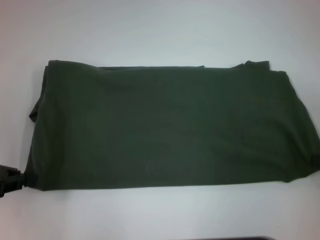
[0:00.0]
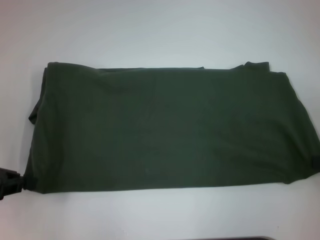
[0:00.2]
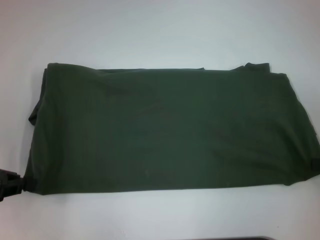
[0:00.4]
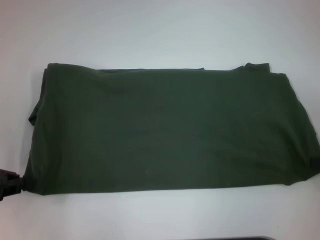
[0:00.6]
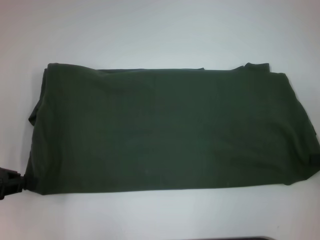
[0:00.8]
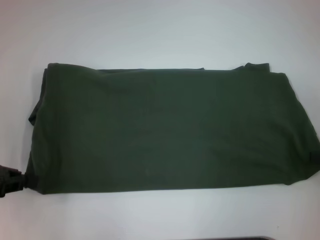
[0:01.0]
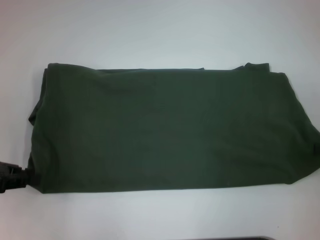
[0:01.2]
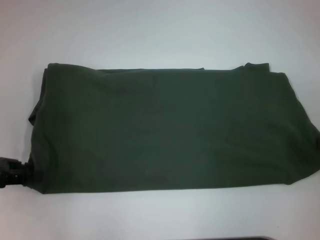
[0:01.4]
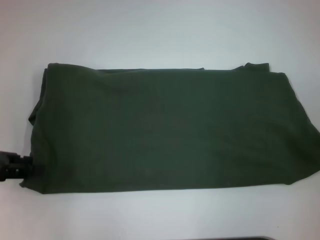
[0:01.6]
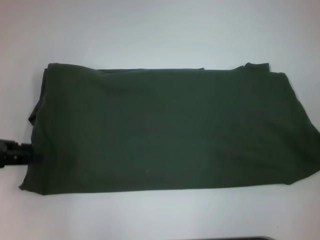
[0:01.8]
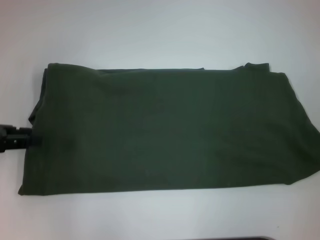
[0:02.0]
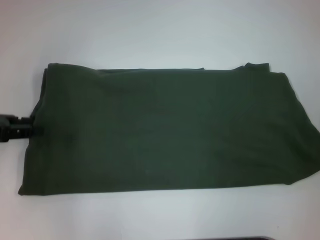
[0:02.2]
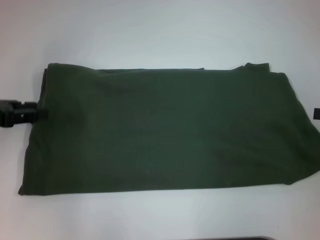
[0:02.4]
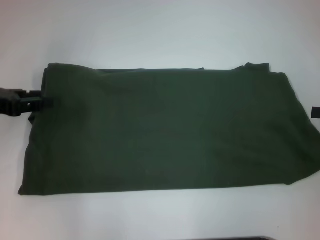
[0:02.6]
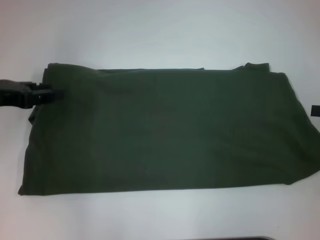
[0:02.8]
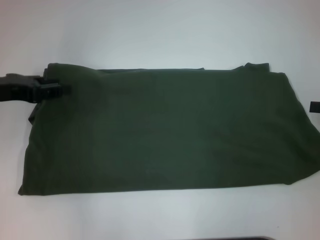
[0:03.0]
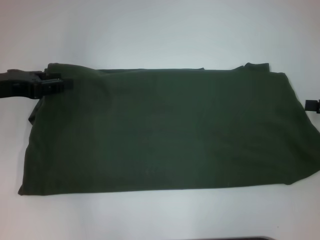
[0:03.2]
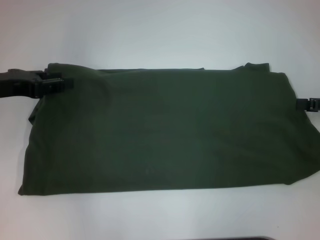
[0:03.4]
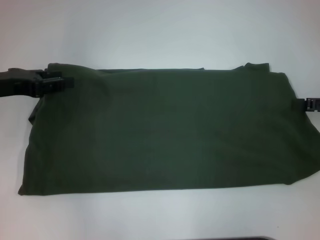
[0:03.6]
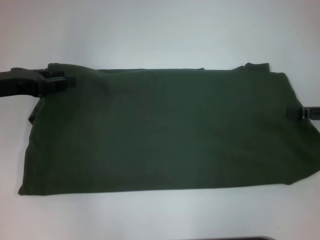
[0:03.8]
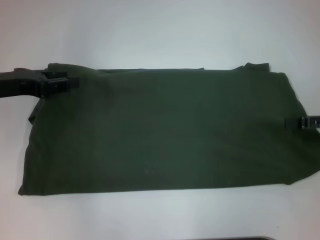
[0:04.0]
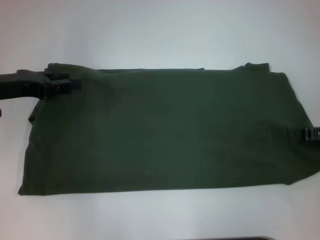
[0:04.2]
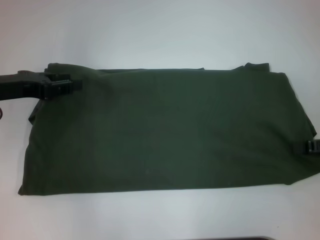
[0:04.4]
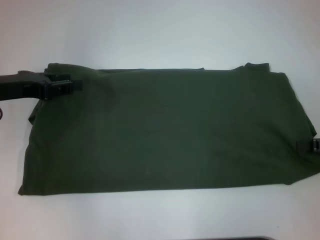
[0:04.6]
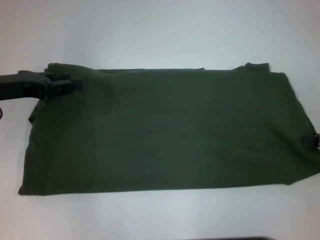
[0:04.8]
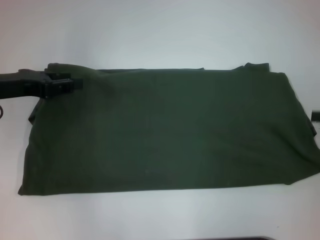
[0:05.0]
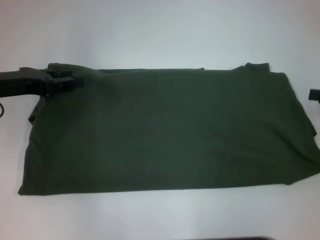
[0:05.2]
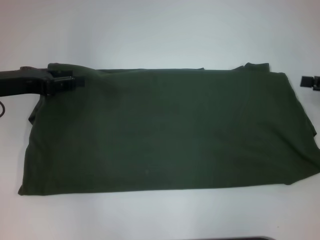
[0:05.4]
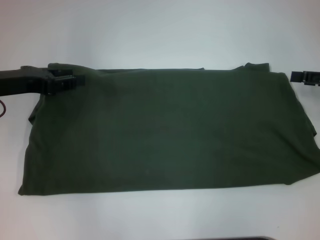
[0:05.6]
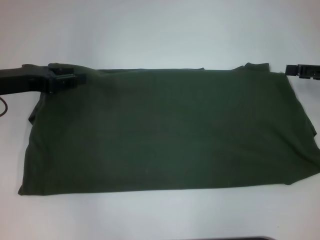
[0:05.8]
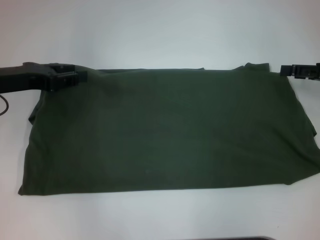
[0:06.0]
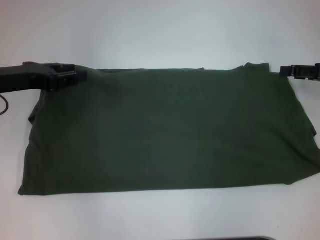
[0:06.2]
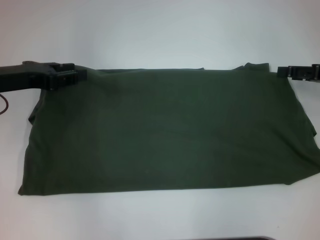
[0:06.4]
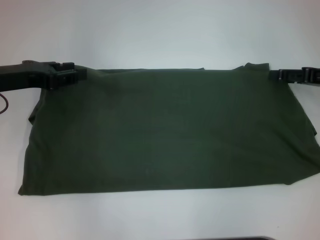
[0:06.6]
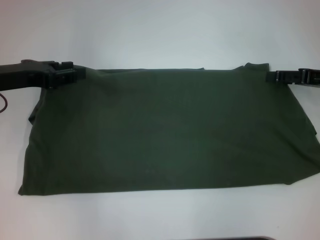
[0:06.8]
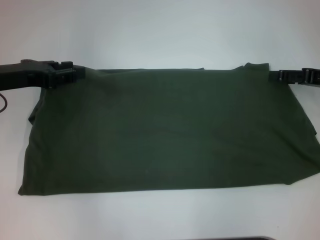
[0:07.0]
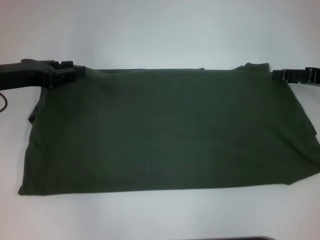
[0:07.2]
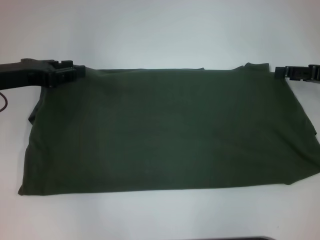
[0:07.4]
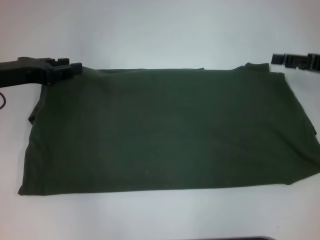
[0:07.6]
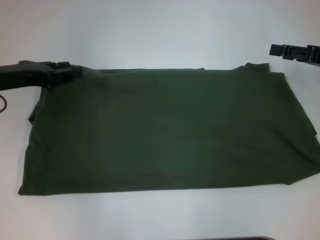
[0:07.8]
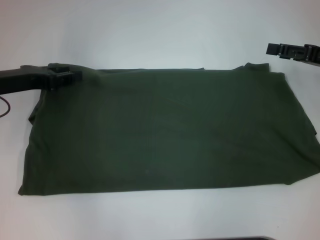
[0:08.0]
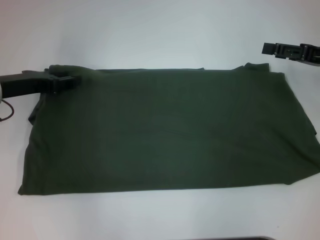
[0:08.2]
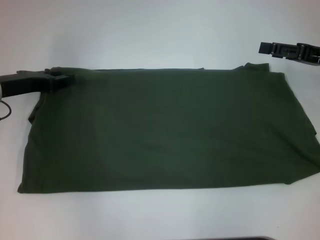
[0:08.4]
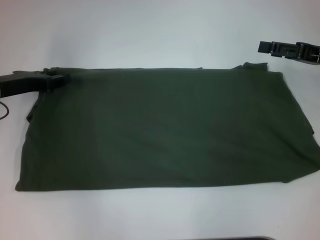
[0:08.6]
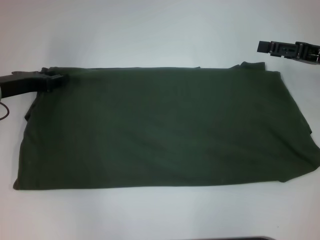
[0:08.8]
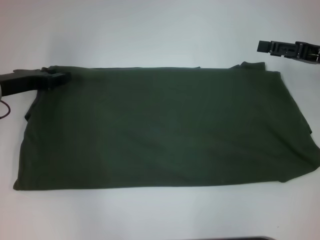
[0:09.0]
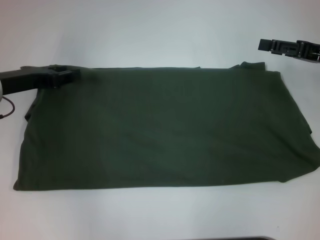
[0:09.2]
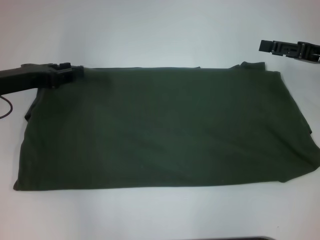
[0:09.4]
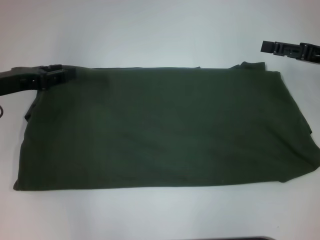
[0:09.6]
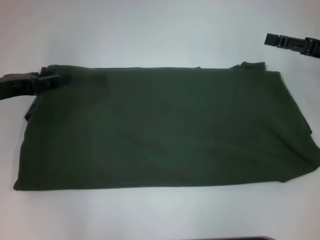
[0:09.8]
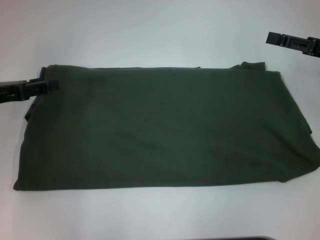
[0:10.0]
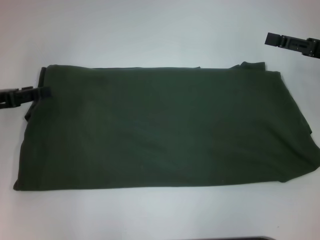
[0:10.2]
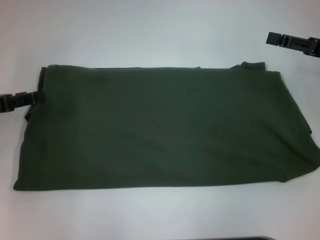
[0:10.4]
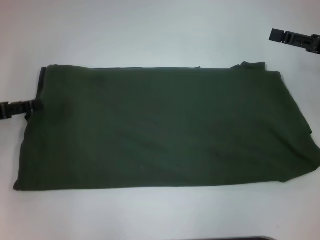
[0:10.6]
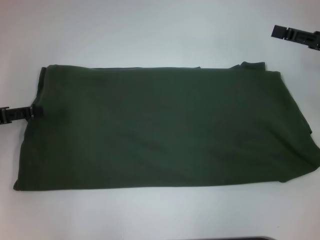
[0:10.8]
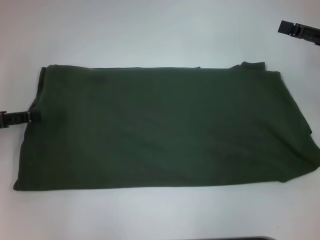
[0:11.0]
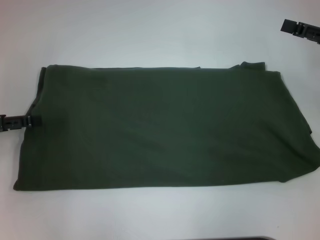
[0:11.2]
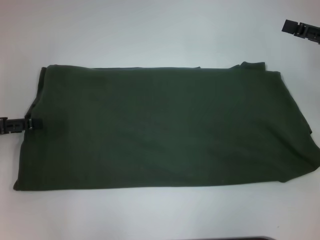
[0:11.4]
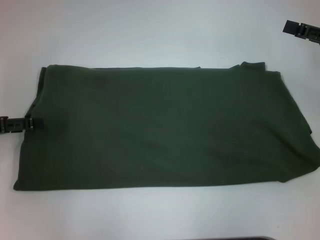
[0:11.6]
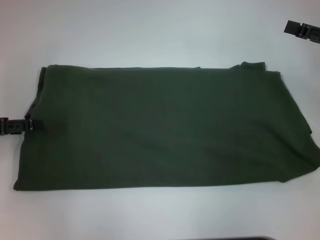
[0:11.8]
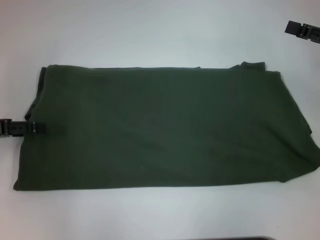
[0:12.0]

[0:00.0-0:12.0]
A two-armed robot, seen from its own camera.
0:00.0 to 0:01.6: The grippers move only a little.
0:01.6 to 0:03.0: The left gripper travels forward by about 5 cm.
0:03.0 to 0:04.4: The grippers stay close to where they were, moving slightly.
0:04.4 to 0:06.0: The right gripper is displaced forward by roughly 10 cm.
0:06.0 to 0:09.0: The grippers move only a little.
0:09.0 to 0:10.4: The left gripper shifts about 10 cm backward and to the left.
0:10.4 to 0:12.0: The grippers stay close to where they were, moving slightly.

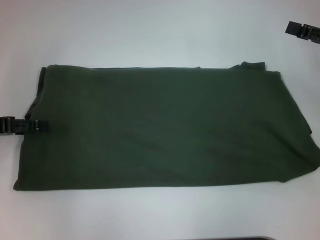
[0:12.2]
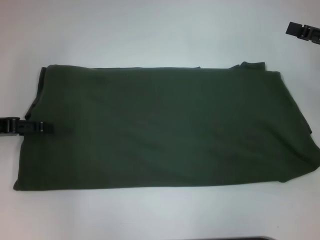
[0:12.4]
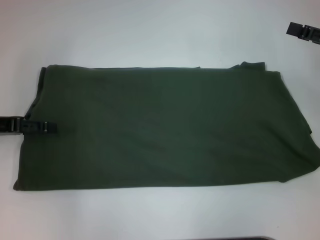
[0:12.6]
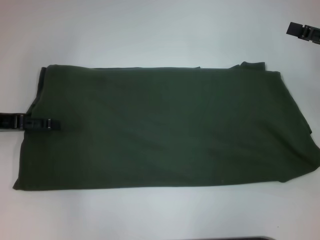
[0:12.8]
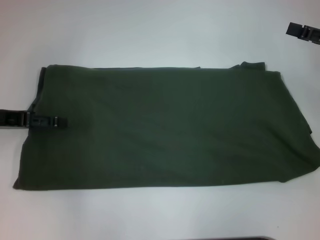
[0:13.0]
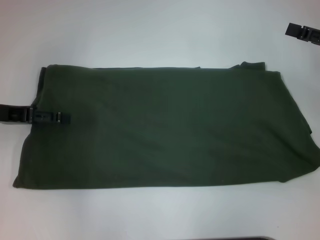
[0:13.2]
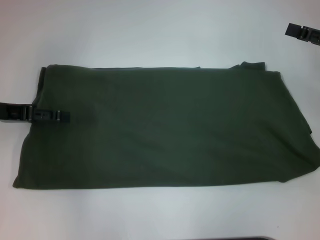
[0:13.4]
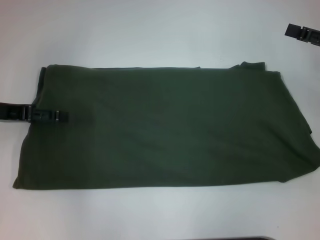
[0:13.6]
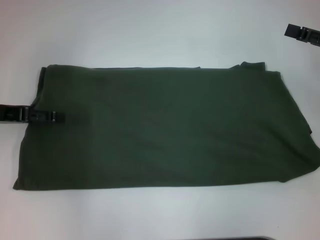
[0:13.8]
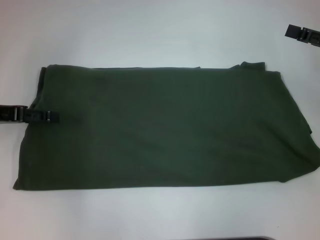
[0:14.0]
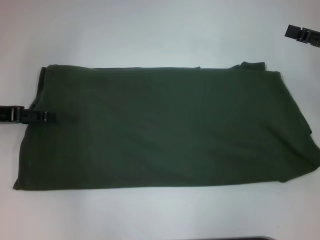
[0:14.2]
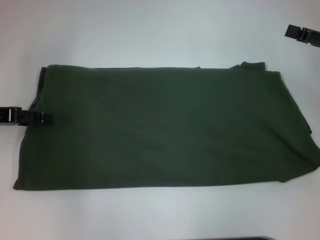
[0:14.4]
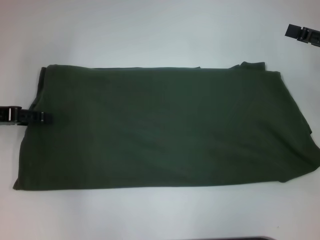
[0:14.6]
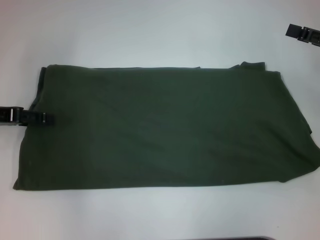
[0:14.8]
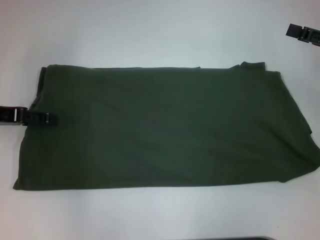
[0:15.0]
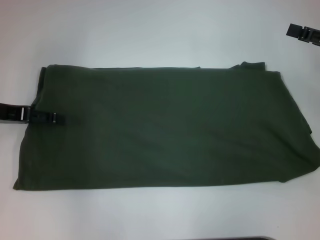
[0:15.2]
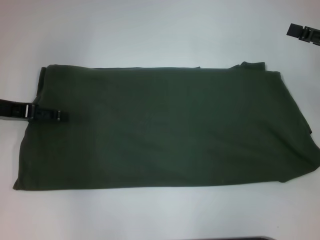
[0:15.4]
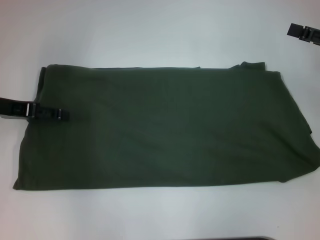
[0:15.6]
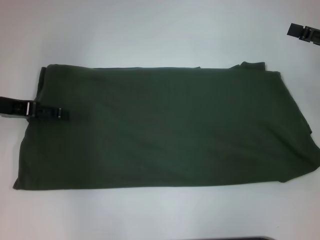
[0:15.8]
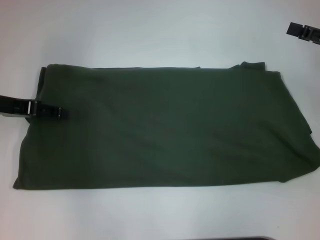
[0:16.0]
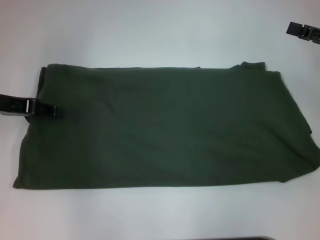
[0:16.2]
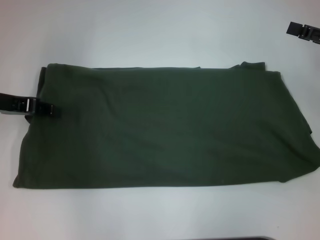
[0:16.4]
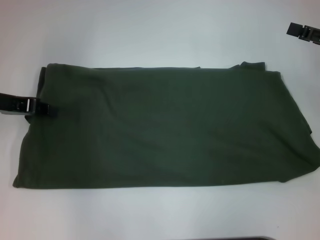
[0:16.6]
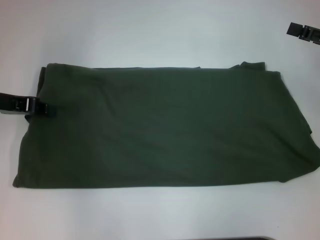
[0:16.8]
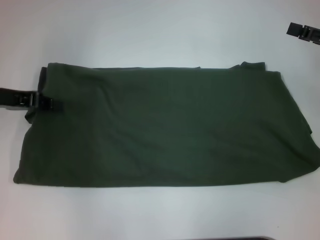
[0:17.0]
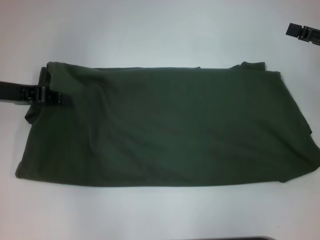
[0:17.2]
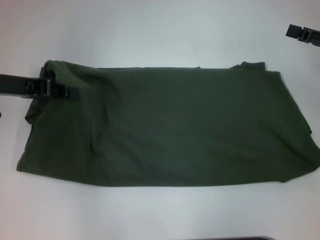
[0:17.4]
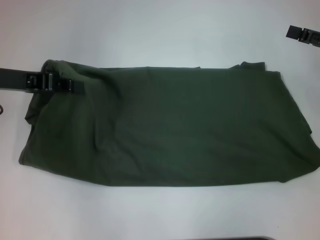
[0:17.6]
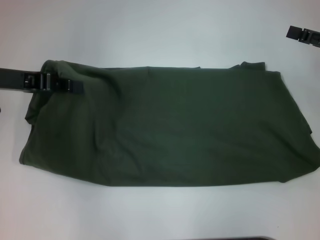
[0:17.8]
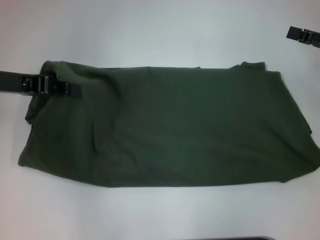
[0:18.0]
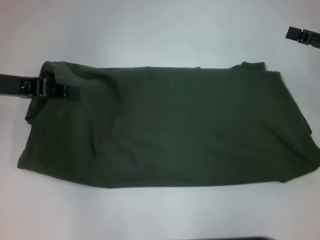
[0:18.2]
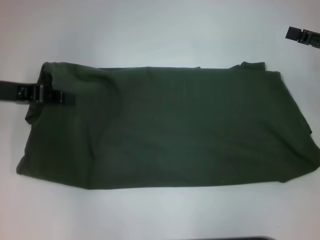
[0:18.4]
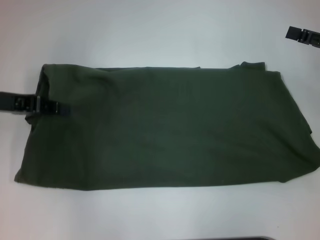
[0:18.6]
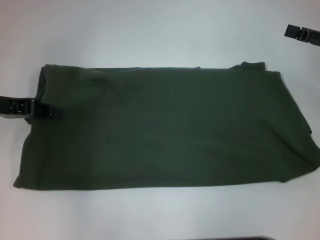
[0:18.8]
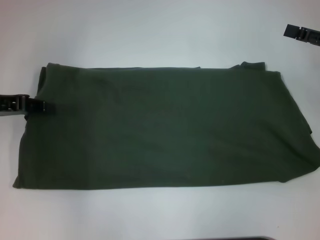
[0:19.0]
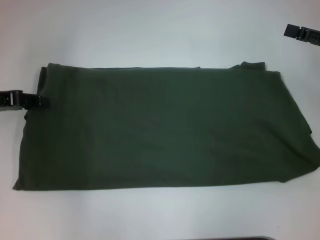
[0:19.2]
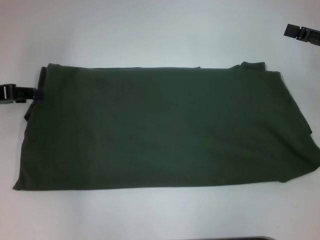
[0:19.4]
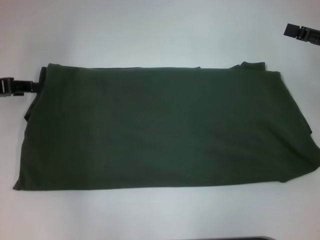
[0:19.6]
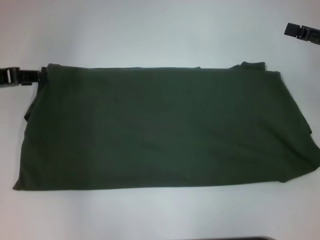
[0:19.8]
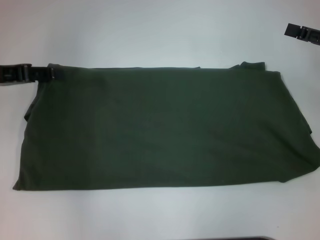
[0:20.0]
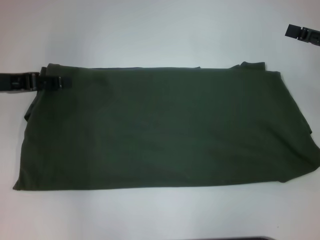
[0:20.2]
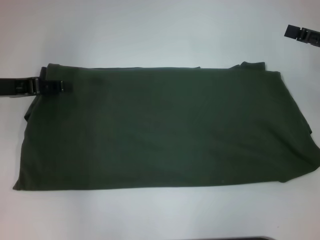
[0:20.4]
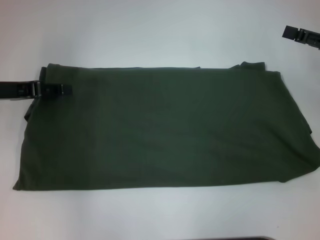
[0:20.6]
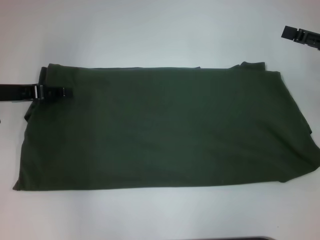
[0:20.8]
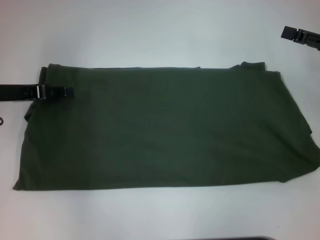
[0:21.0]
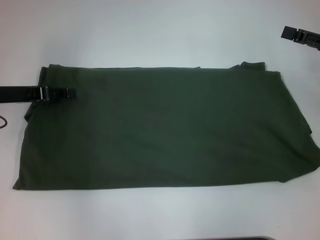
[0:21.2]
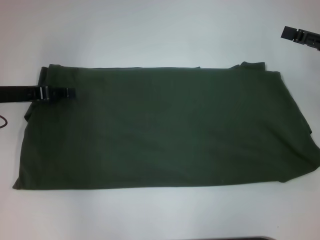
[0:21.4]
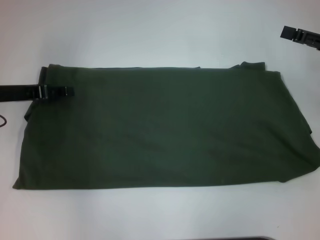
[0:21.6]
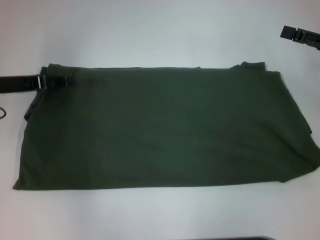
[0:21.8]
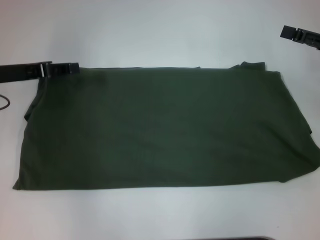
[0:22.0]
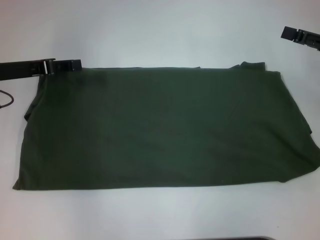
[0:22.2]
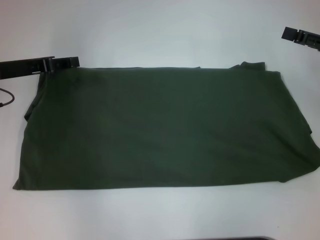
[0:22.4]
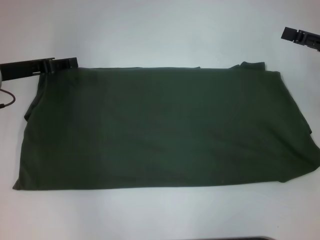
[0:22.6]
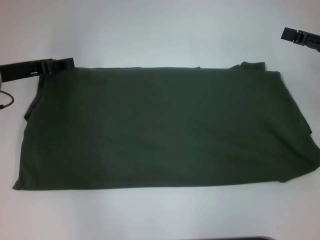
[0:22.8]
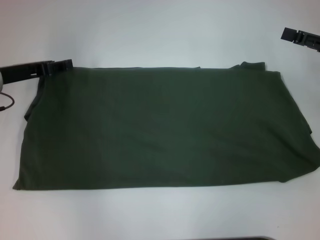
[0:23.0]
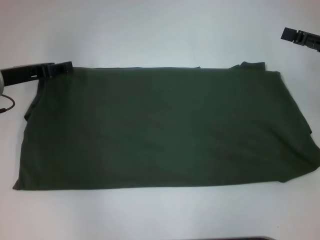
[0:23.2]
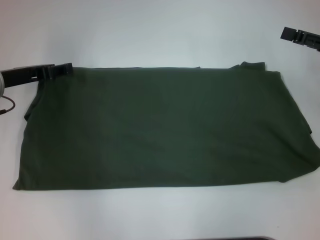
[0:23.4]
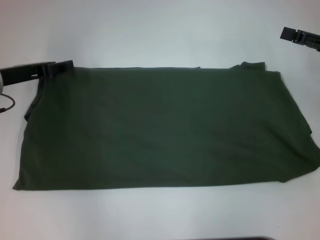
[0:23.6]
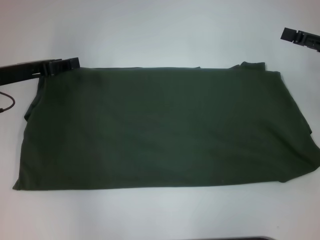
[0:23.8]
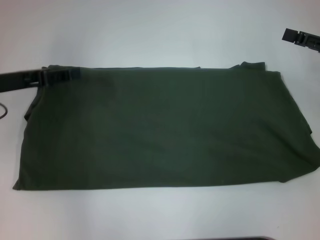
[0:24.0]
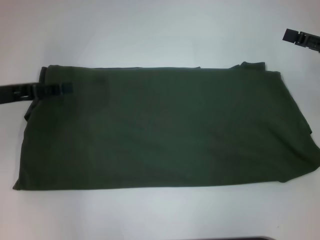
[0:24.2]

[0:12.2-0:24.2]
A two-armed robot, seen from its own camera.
0:12.2 to 0:13.8: The grippers stay close to where they were, moving slightly.
0:15.2 to 0:16.6: The left gripper closes its fingers.
0:16.6 to 0:18.2: The grippers make only small movements.
0:18.2 to 0:19.8: The left gripper opens its fingers.
0:19.8 to 0:21.2: The left gripper shifts by some 5 cm.
0:21.2 to 0:22.6: There are only small adjustments of the grippers.
0:22.6 to 0:24.2: The left gripper shifts by roughly 5 cm.
